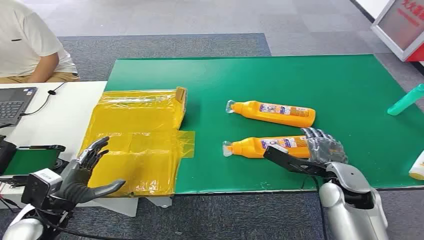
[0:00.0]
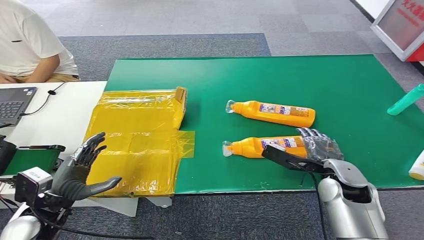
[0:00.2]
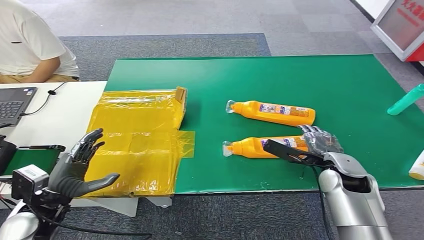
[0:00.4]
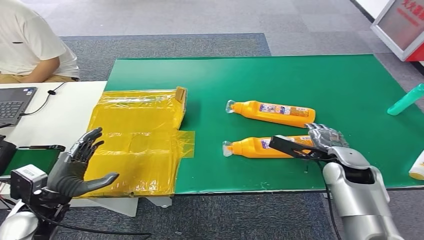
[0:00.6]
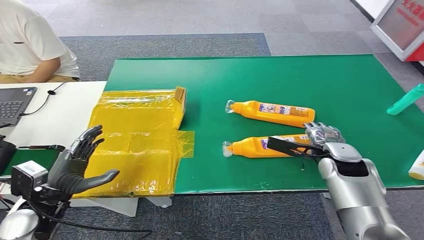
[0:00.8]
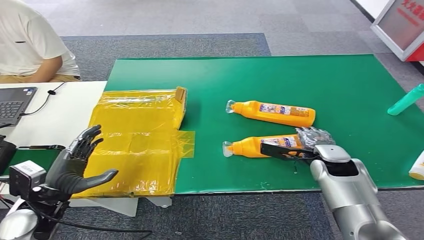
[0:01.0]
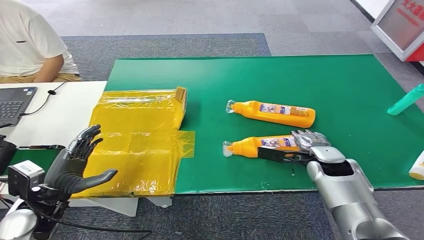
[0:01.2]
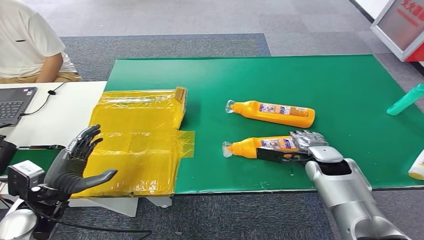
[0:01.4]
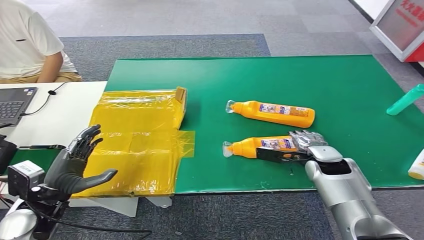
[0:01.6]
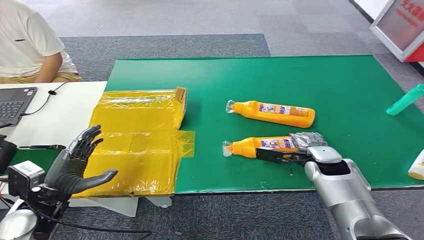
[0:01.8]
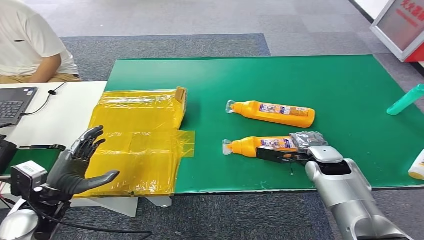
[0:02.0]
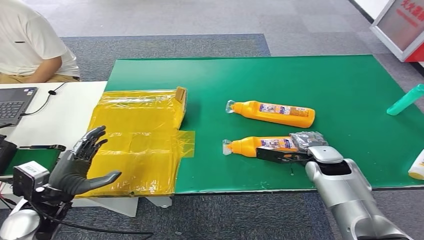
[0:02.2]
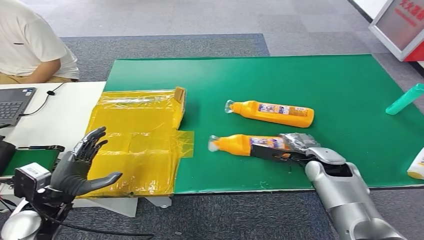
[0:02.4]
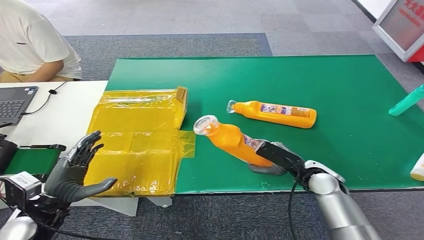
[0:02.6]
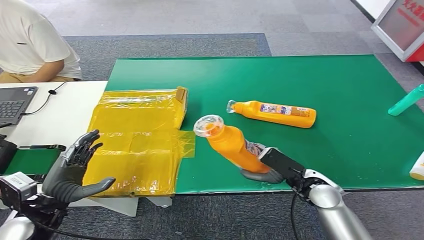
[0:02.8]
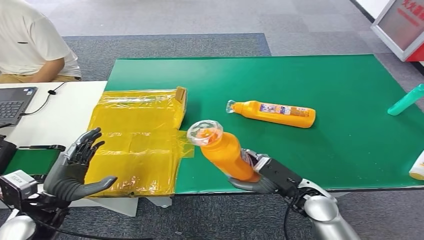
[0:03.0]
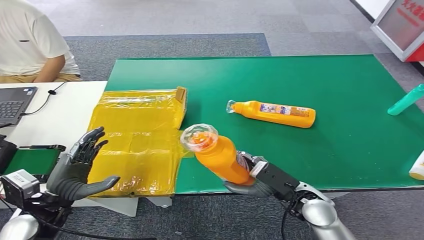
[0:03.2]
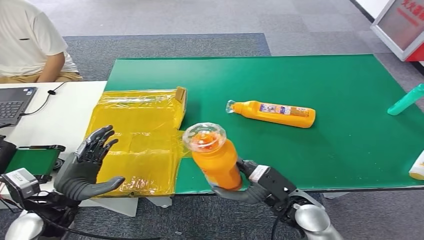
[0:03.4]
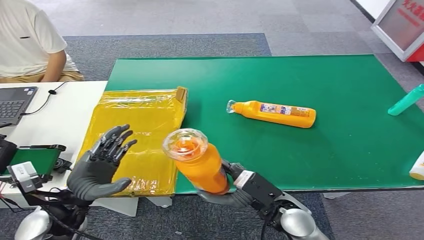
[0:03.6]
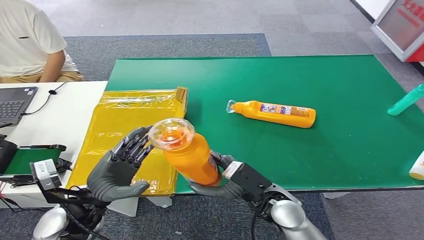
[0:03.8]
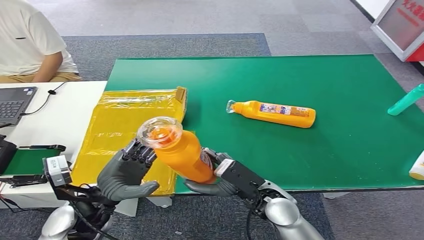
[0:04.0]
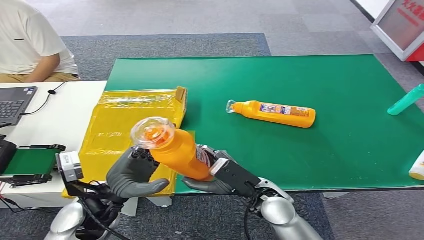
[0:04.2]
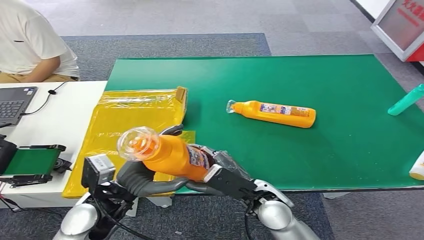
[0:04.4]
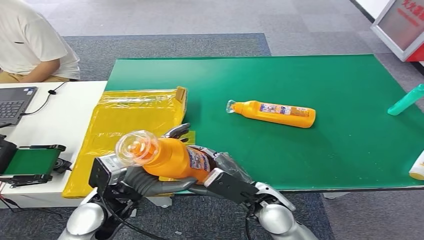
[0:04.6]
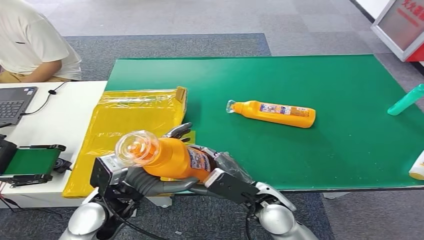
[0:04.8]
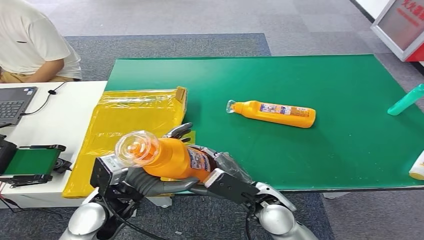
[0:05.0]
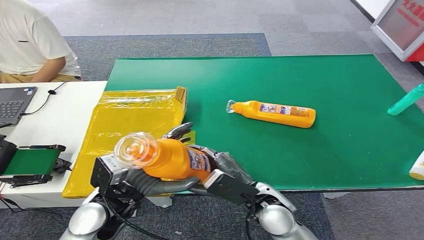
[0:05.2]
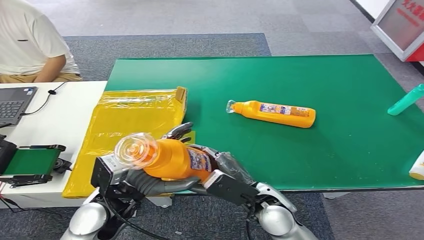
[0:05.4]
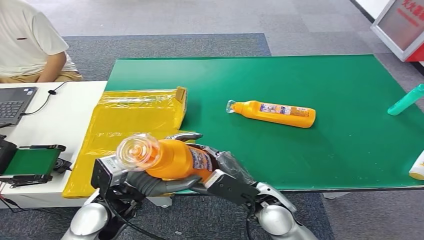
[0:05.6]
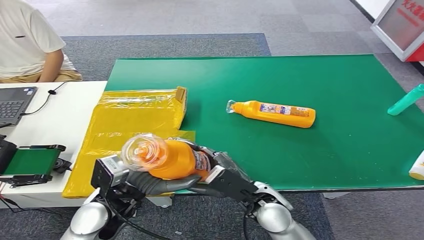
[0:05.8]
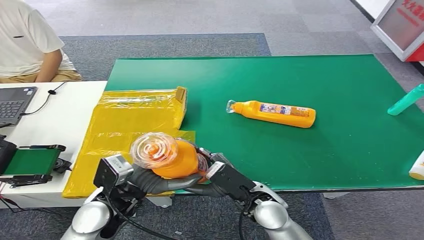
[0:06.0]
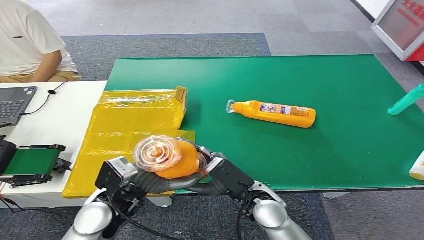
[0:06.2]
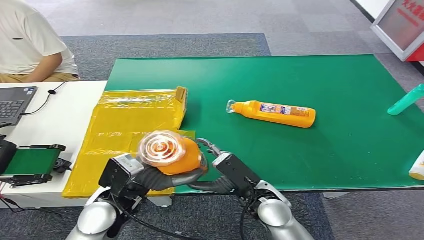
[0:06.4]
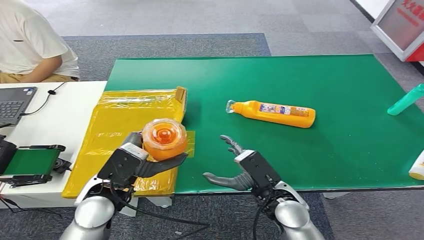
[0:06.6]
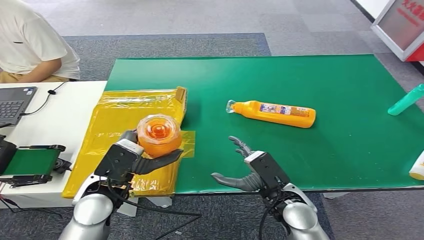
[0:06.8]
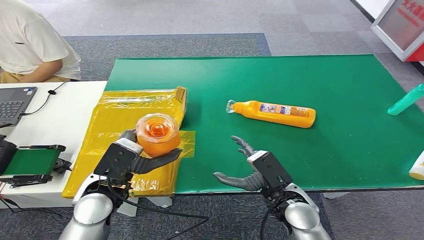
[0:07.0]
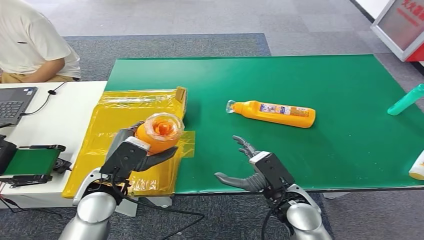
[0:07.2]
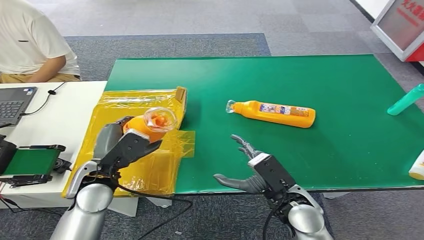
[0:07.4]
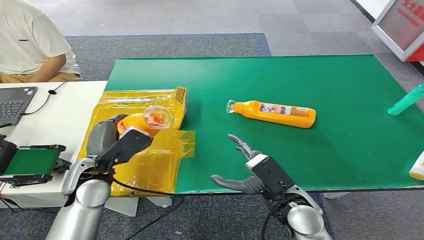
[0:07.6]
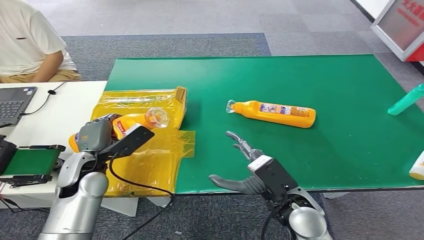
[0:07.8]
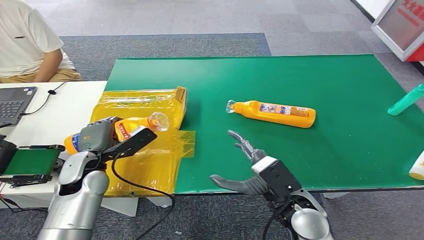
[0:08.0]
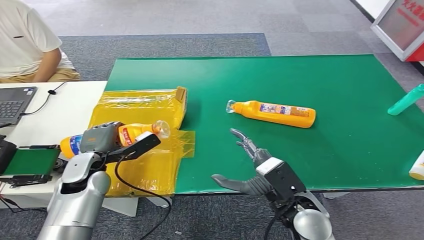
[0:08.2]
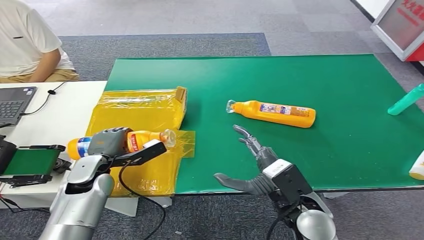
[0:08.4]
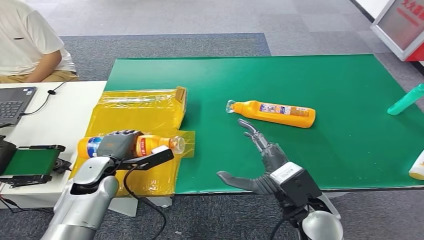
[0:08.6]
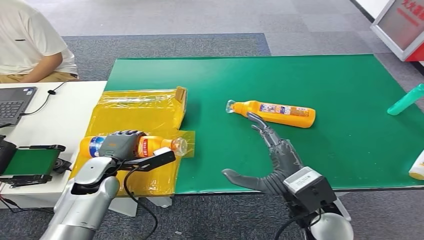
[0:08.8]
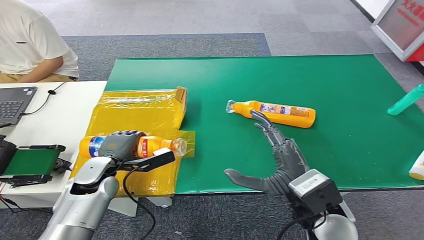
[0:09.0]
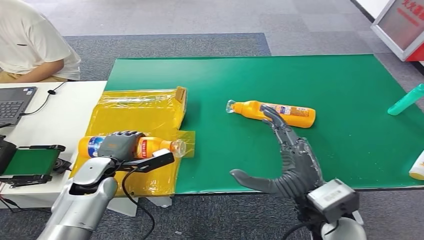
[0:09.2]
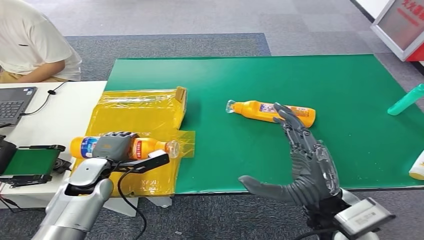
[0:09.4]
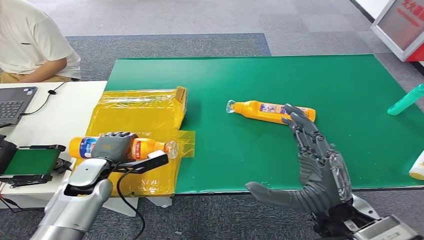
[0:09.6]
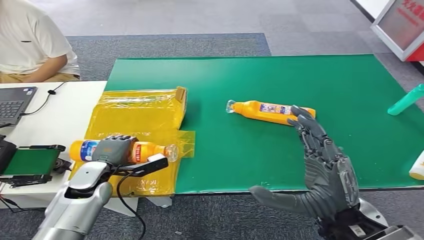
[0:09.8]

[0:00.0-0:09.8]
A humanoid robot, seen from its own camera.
Step, 0:00.0 to 0:03.2: Pick up the bottle from the table.
Step, 0:05.0 to 0:09.6: Turn the bottle to the front side.
0:01.4 to 0:02.8: The right hand travels backward by roughly 10 cm.
0:04.2 to 0:05.6: The hands move only a little.
0:05.6 to 0:07.0: The right hand shifts by approximately 5 cm.
0:07.0 to 0:08.4: The left hand shifts about 10 cm forward, to the left and downward.
0:08.4 to 0:09.8: The right hand moves upward, some 10 cm.
